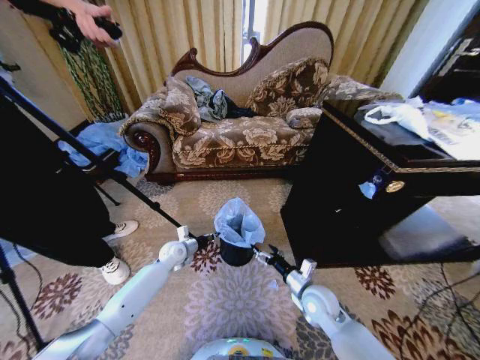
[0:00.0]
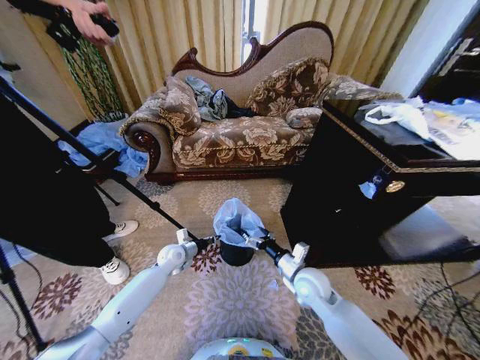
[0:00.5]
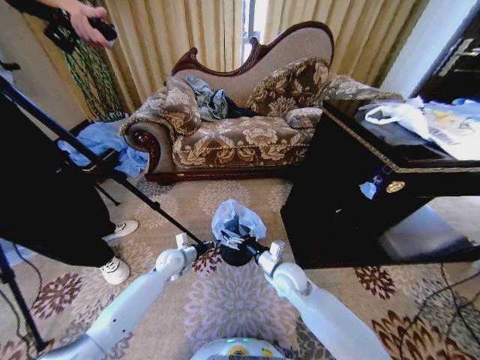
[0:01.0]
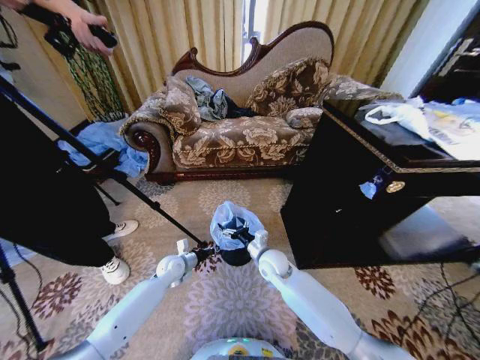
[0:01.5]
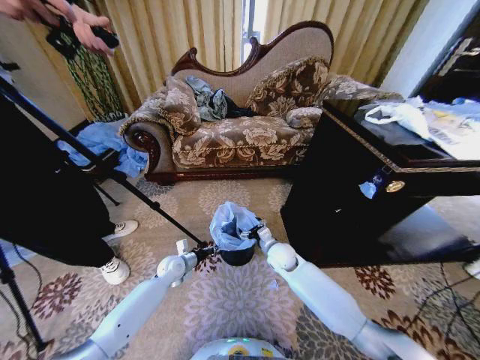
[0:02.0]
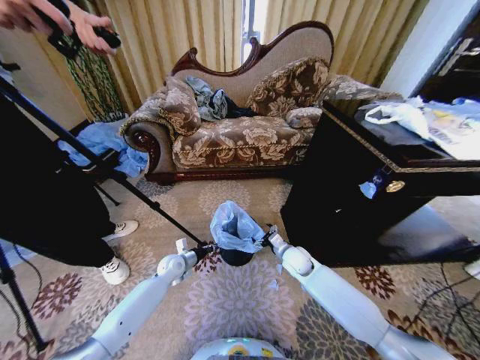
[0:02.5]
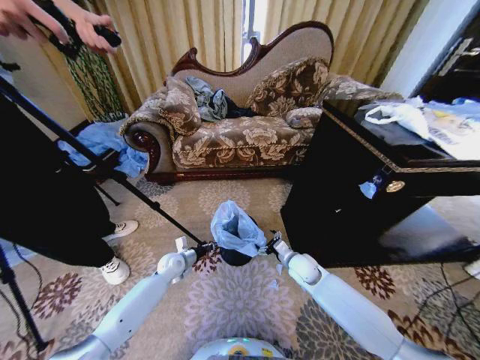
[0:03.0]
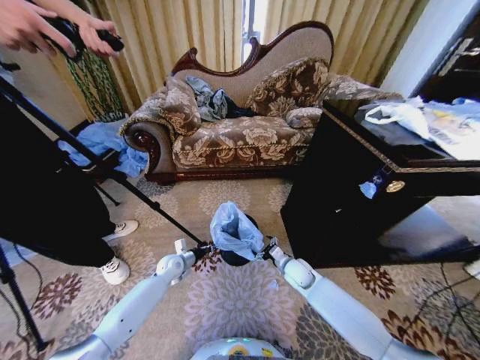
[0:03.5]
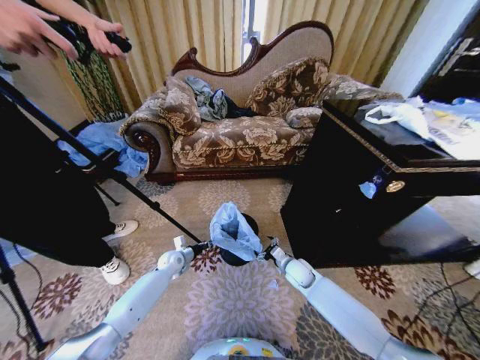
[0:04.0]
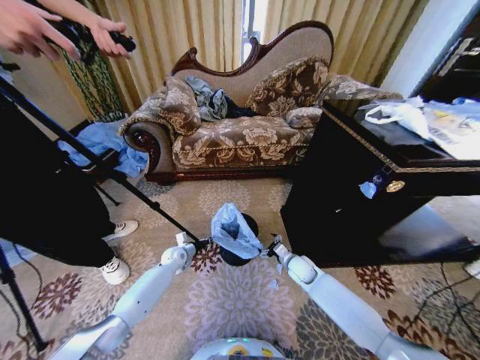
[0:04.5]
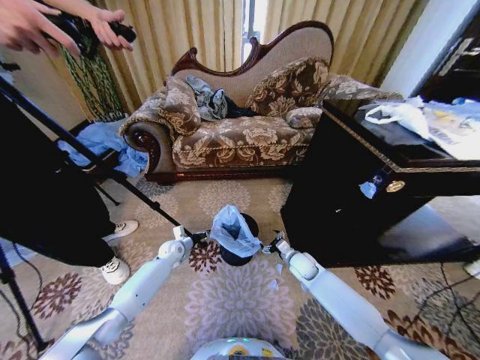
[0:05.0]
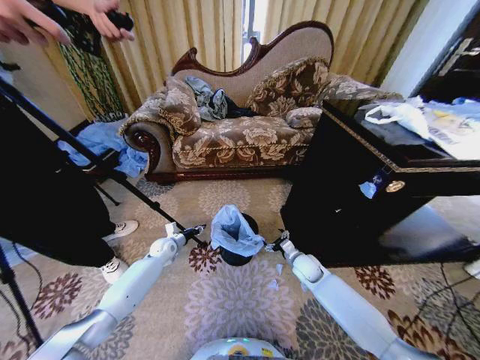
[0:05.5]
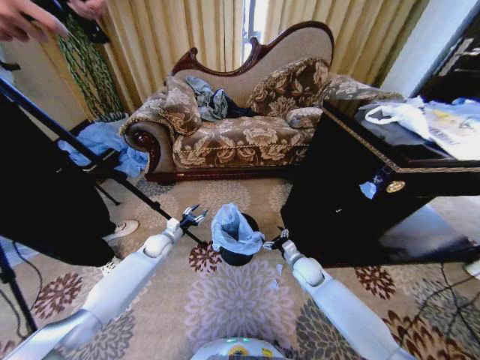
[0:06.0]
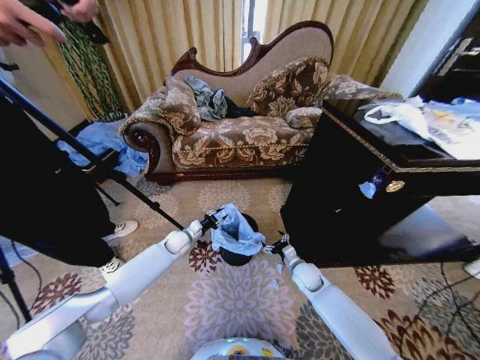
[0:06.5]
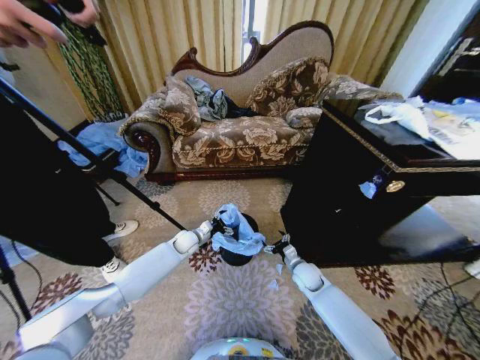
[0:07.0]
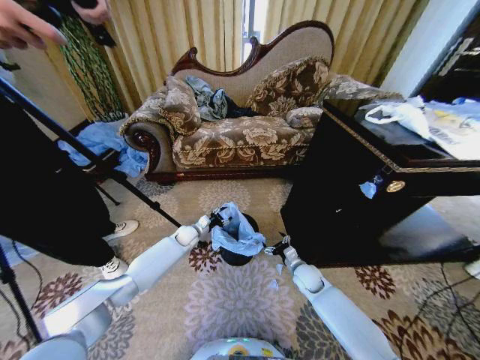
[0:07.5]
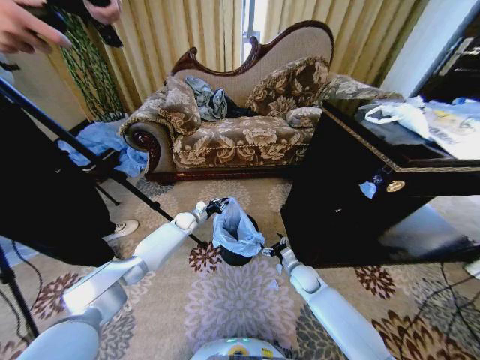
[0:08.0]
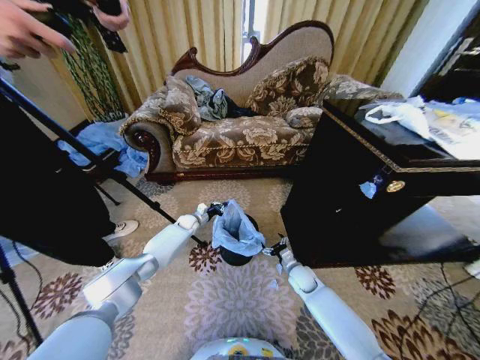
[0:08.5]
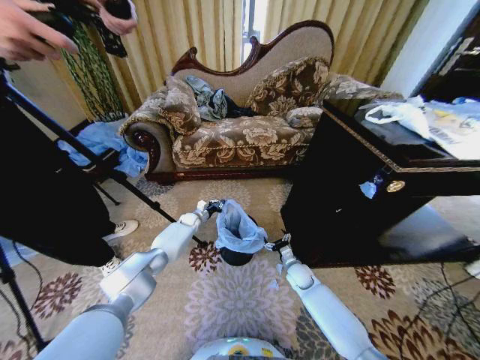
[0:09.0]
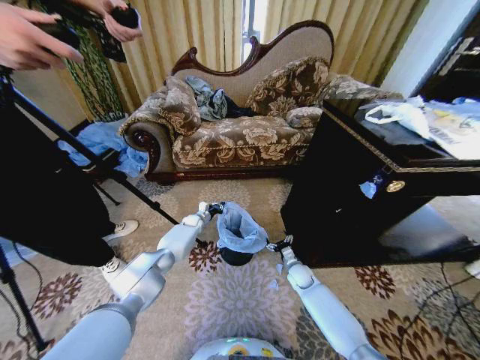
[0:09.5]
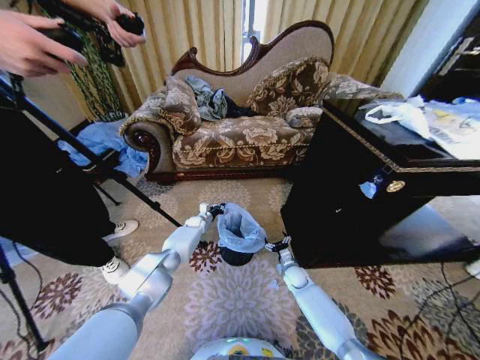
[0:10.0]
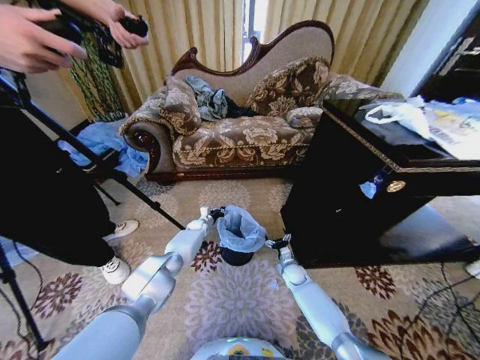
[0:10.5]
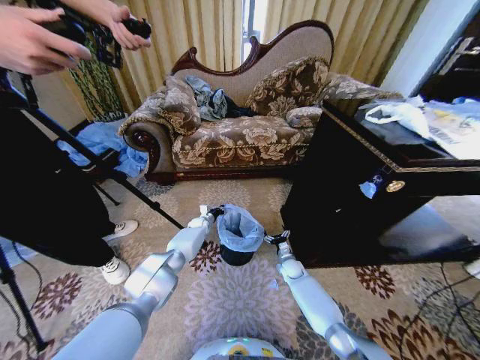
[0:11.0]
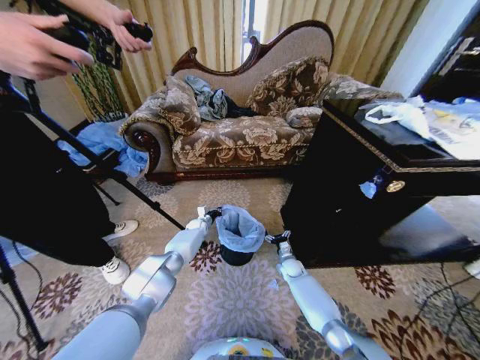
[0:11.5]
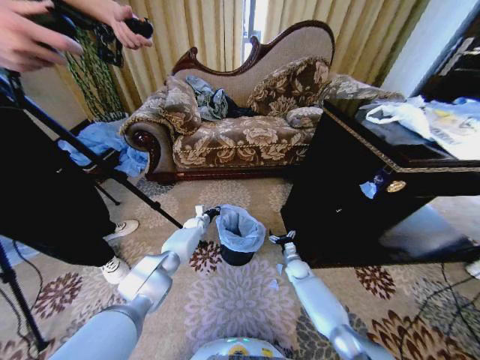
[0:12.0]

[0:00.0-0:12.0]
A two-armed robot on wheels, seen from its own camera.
Task of the whole recording: Place a garbage bag over the trash bin.
0:00.0 to 0:02.0: The right gripper travels forward and to the left by roughly 15 cm.
0:02.0 to 0:04.0: The right gripper is displaced downward and to the right by roughly 10 cm.
0:04.0 to 0:06.0: The left gripper travels upward by approximately 5 cm, and opens its fingers.
0:06.0 to 0:08.0: The left gripper travels forward and to the right by approximately 15 cm, and closes.
0:08.0 to 0:10.0: Both grippers travel together downward, some 5 cm.
0:10.0 to 0:12.0: The grippers make only small movements.

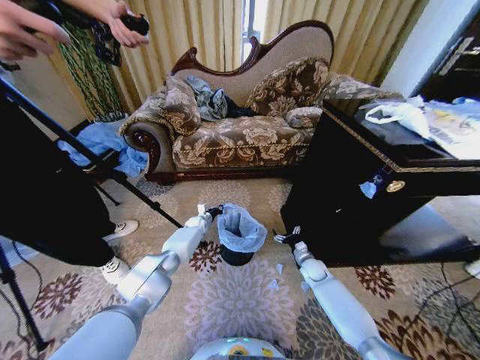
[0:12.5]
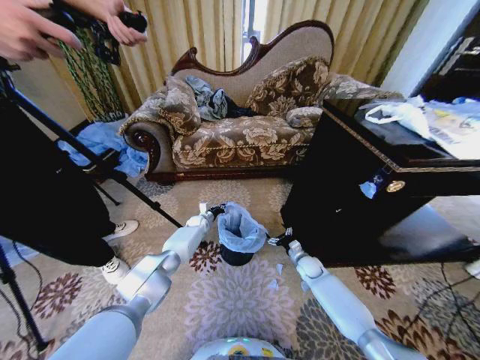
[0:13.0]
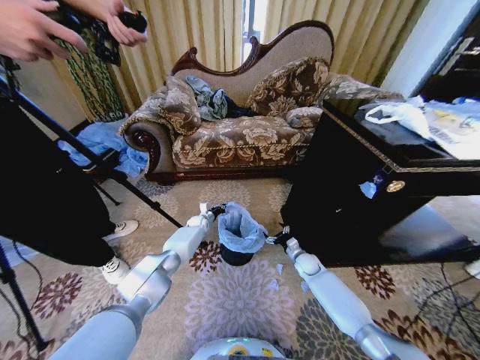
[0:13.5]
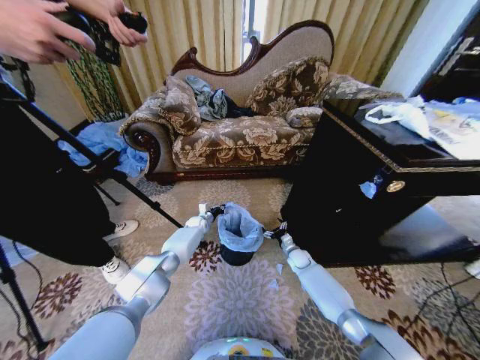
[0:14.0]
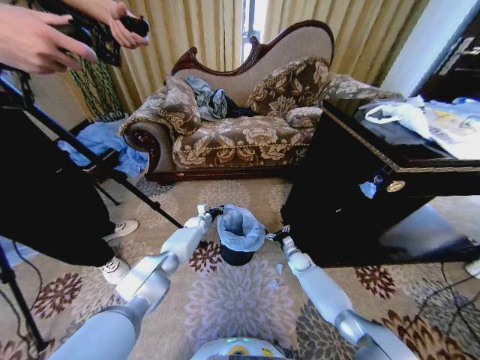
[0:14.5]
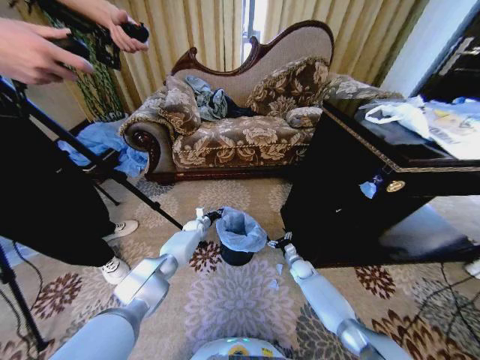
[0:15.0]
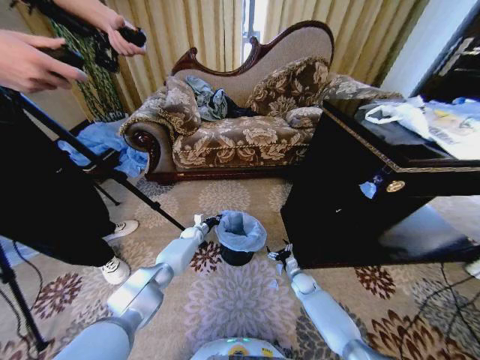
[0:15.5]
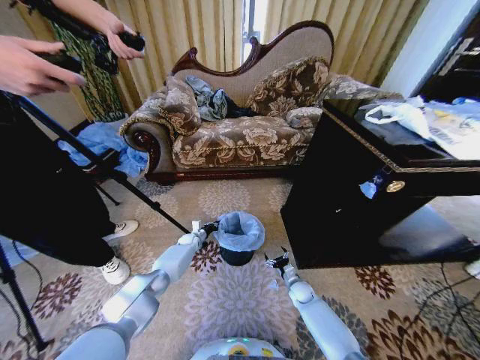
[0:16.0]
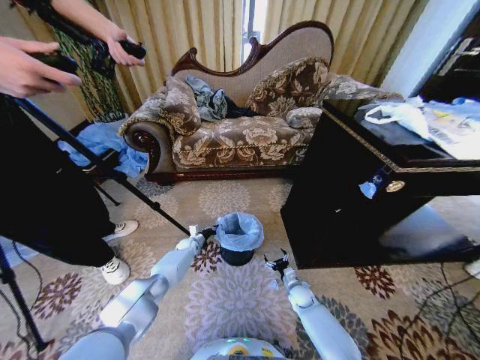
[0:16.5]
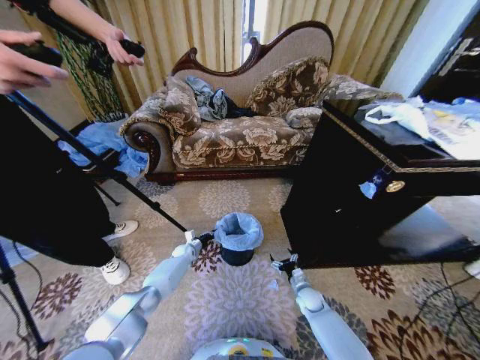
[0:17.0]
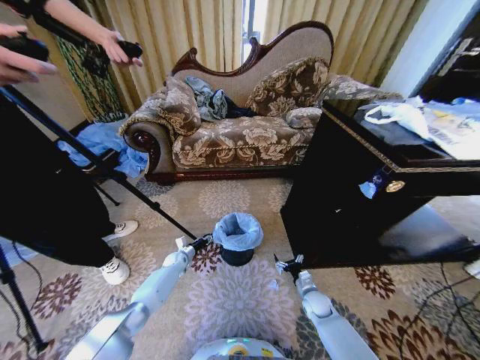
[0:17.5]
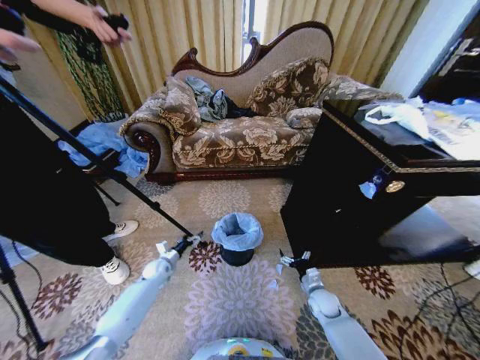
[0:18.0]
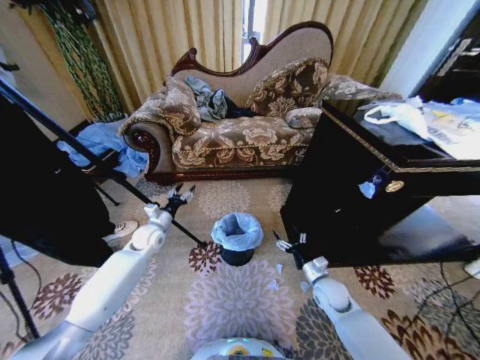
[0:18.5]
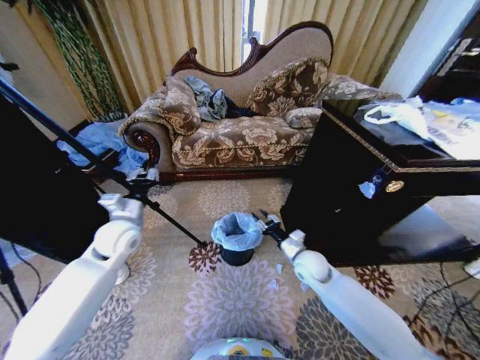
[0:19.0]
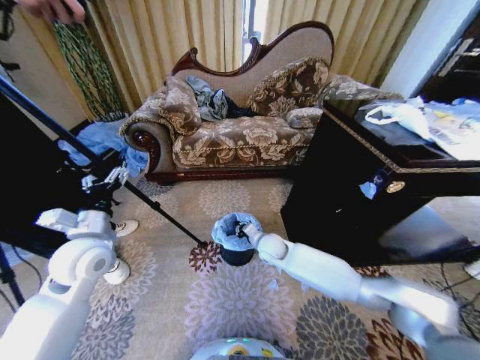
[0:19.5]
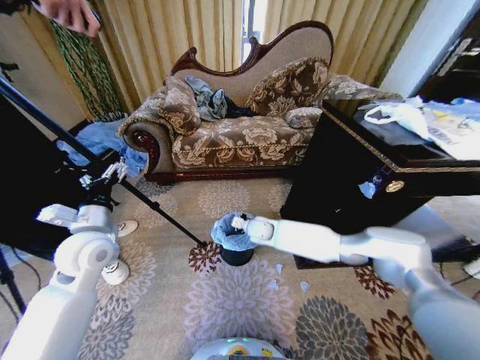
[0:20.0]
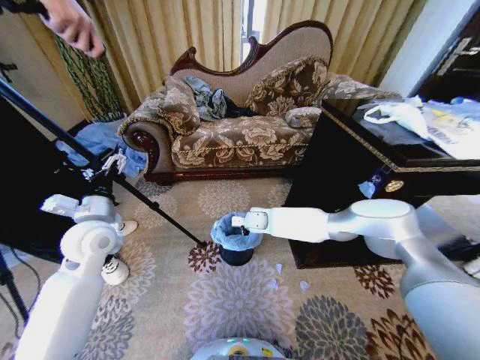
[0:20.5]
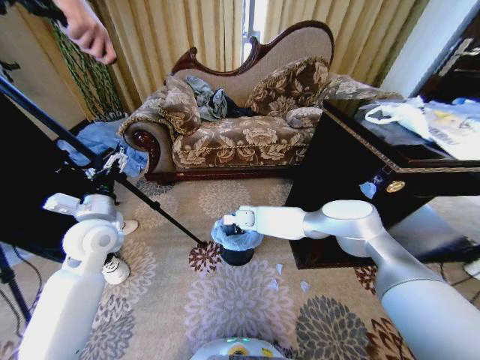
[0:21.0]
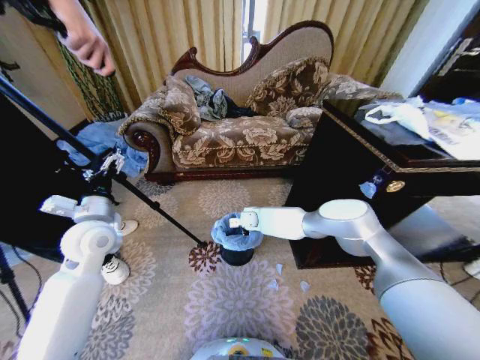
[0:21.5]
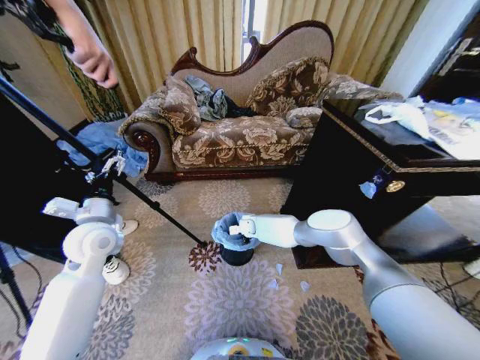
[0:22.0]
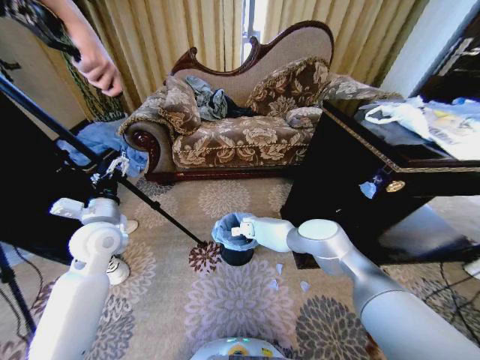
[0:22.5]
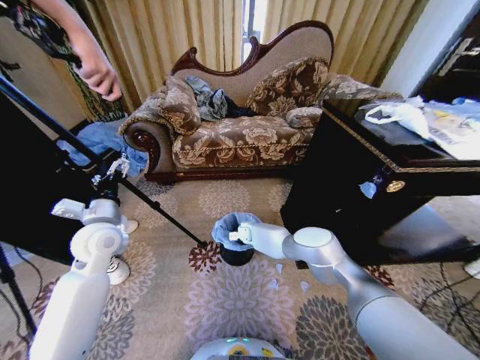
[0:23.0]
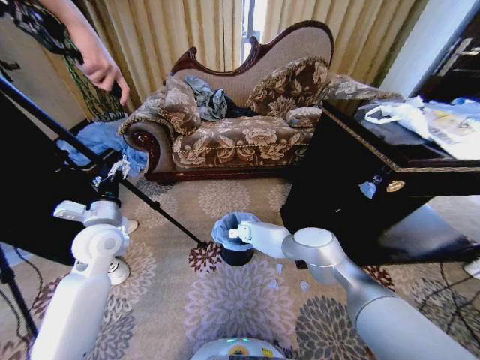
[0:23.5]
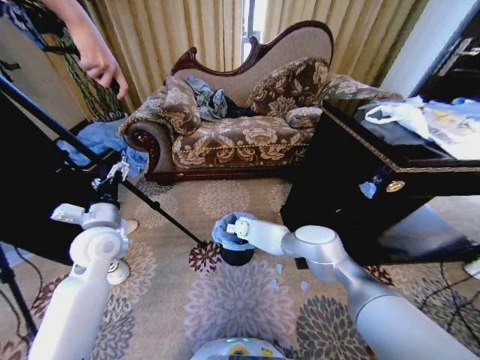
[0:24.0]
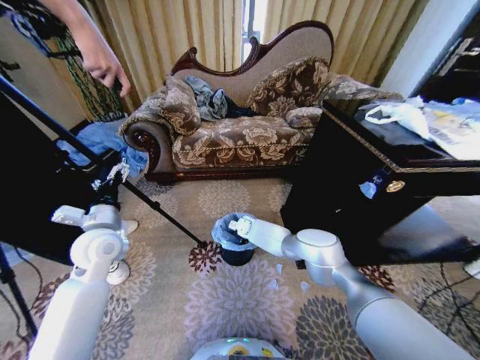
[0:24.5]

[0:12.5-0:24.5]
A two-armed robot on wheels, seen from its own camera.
Task of the whole recording: Place a garbage bag over the trash bin.
0:12.5 to 0:14.5: The right gripper shifts by some 5 cm.
0:14.5 to 0:16.5: The right gripper travels backward and downward by approximately 15 cm, while the left gripper is displaced downward and backward by some 10 cm.
0:16.5 to 0:18.5: The left gripper is displaced upward and backward by roughly 25 cm, and opens up, while the right gripper goes some 15 cm upward.
0:18.5 to 0:20.5: The right gripper is displaced to the left, forward and upward by about 35 cm, and closes. Meanwhile the left gripper shifts some 20 cm upward and backward, and closes, then reopens.
0:20.5 to 0:22.5: The right gripper shifts some 10 cm downward and forward.
0:22.5 to 0:24.5: The right gripper opens up.

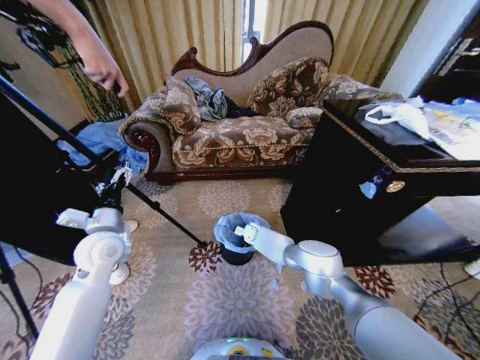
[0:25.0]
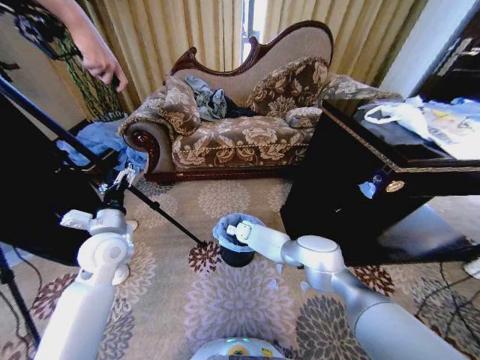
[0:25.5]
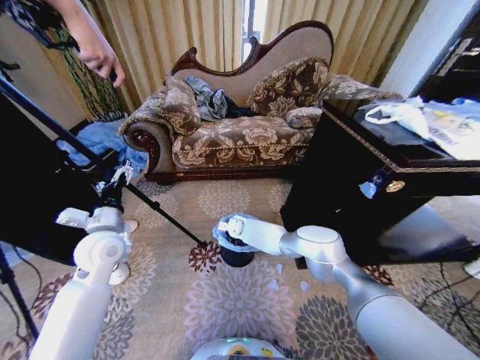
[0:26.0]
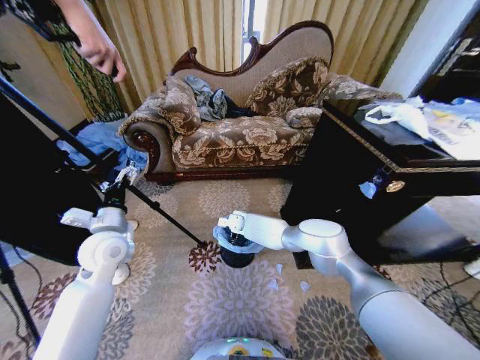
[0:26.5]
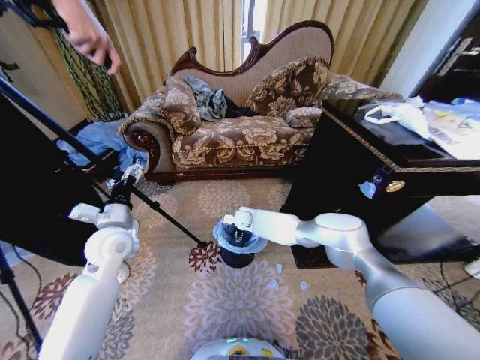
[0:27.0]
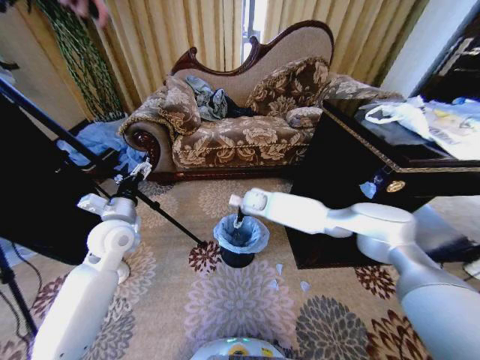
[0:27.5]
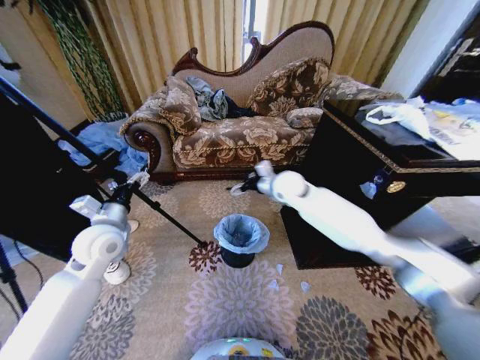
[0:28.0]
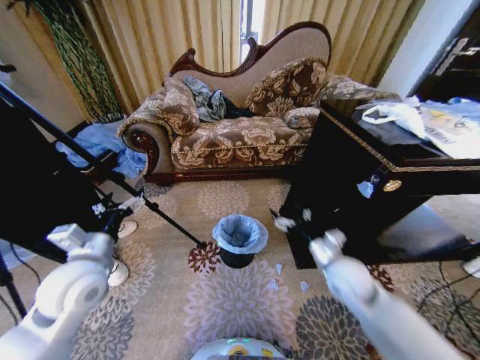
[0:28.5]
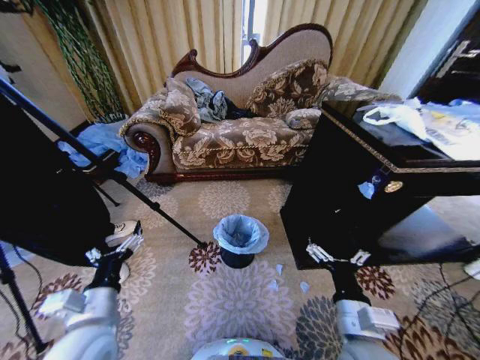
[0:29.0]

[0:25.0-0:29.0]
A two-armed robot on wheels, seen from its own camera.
Task of the whole recording: Place a garbage bag over the trash bin.
0:25.0 to 0:27.0: The right gripper is displaced upward by approximately 10 cm.
0:27.0 to 0:29.0: The left gripper goes roughly 20 cm backward. The right gripper heads backward and to the right, covering some 50 cm.
